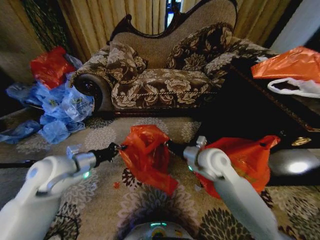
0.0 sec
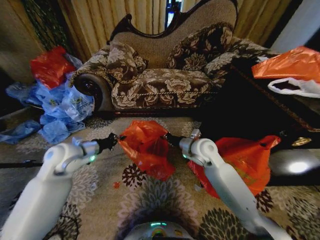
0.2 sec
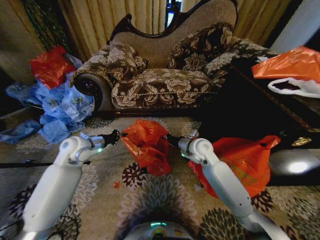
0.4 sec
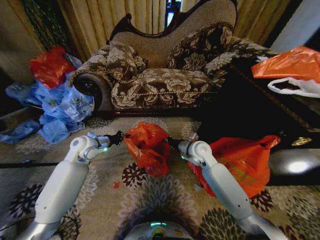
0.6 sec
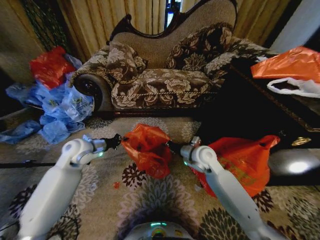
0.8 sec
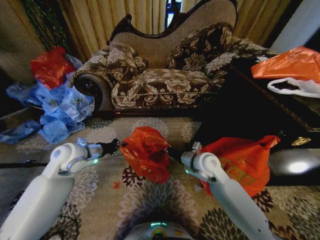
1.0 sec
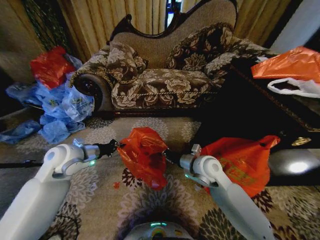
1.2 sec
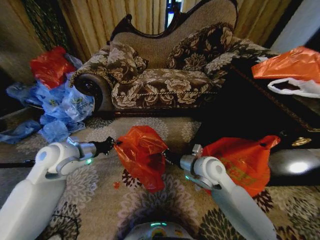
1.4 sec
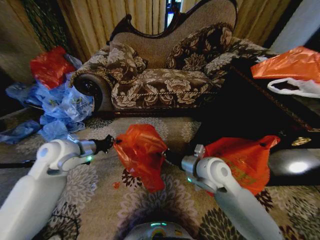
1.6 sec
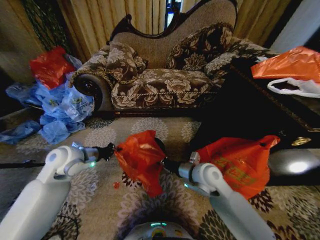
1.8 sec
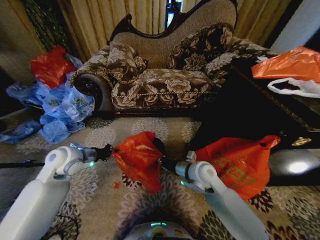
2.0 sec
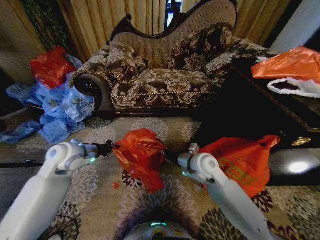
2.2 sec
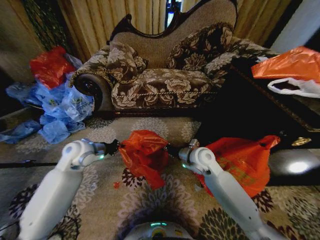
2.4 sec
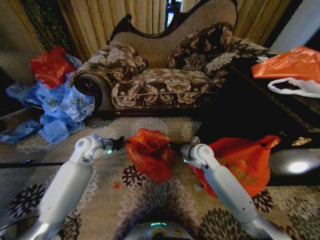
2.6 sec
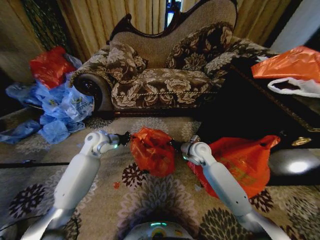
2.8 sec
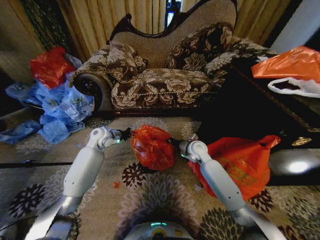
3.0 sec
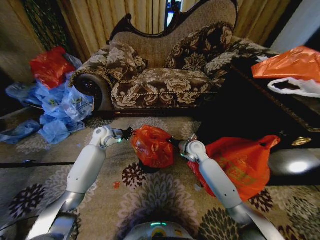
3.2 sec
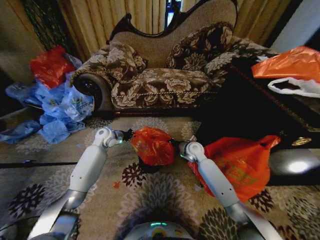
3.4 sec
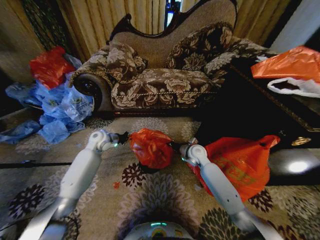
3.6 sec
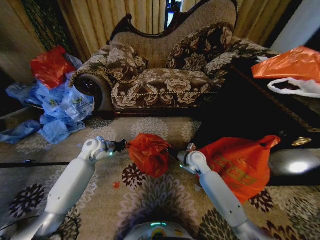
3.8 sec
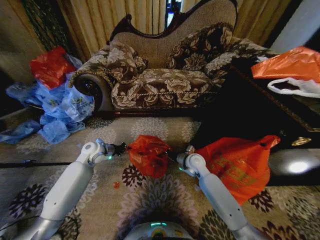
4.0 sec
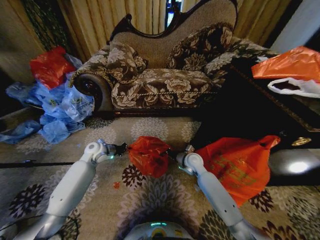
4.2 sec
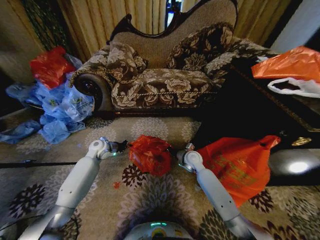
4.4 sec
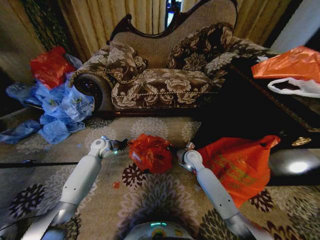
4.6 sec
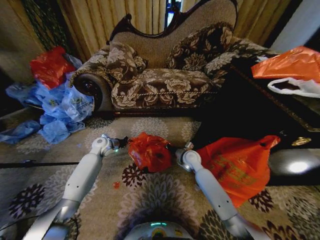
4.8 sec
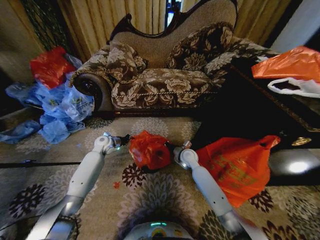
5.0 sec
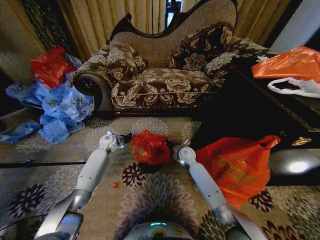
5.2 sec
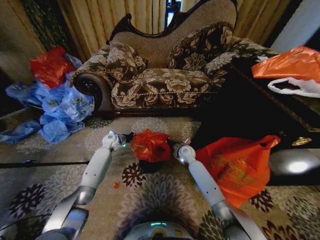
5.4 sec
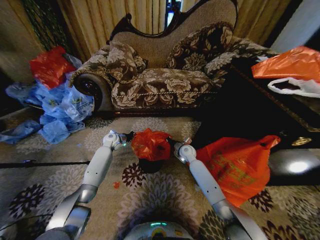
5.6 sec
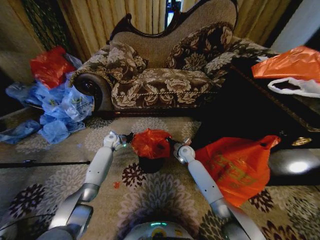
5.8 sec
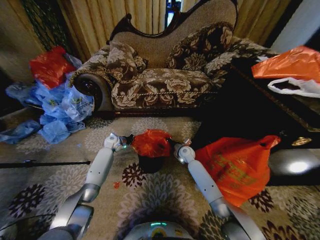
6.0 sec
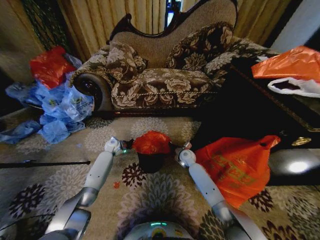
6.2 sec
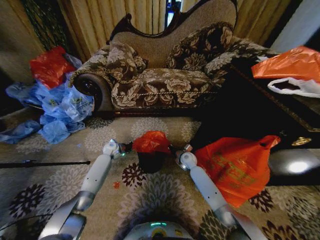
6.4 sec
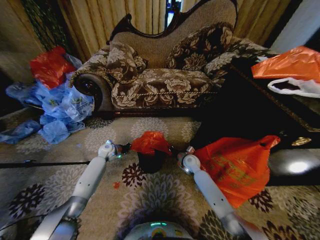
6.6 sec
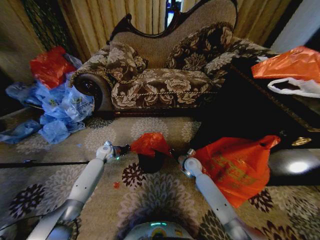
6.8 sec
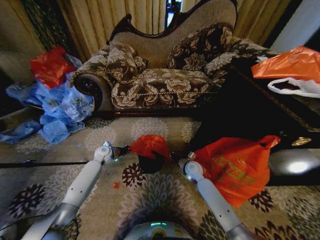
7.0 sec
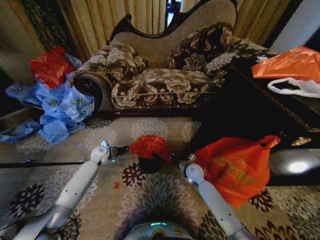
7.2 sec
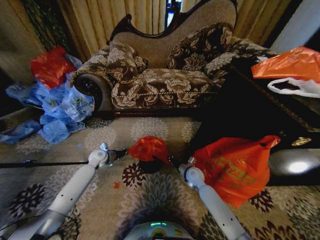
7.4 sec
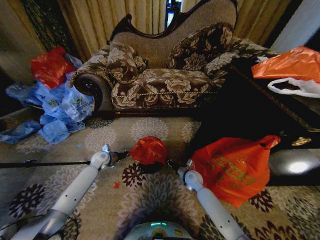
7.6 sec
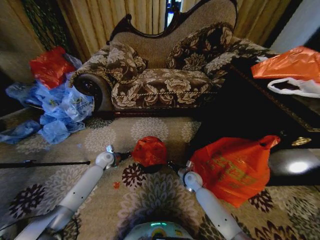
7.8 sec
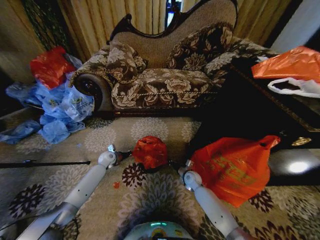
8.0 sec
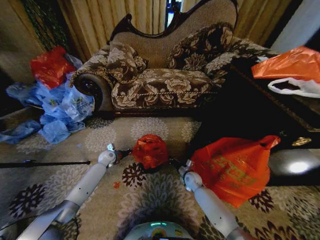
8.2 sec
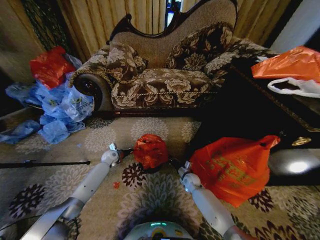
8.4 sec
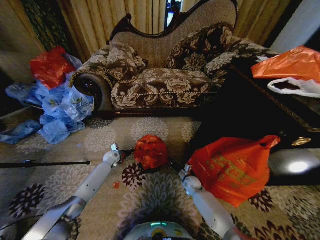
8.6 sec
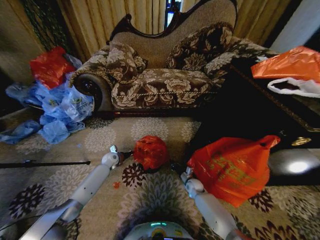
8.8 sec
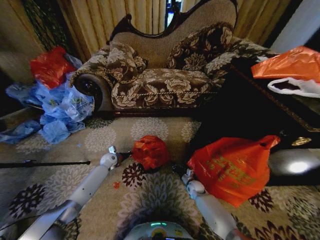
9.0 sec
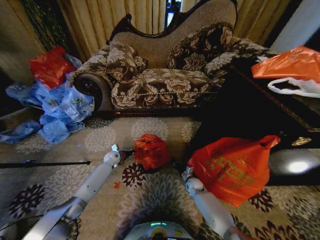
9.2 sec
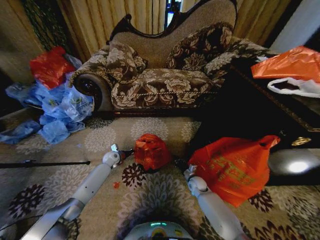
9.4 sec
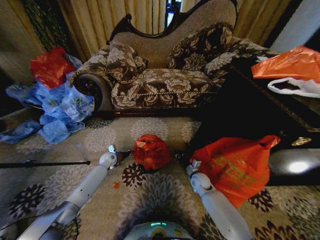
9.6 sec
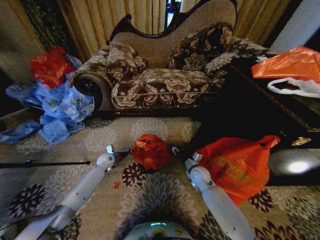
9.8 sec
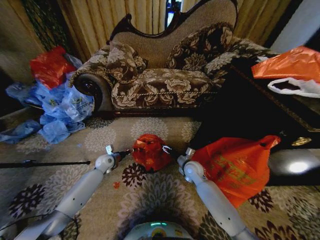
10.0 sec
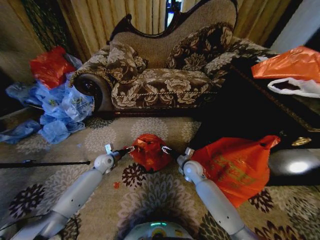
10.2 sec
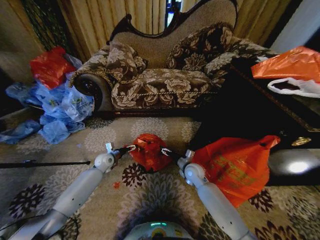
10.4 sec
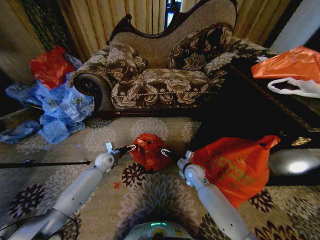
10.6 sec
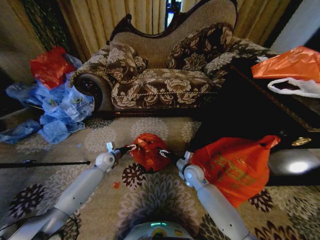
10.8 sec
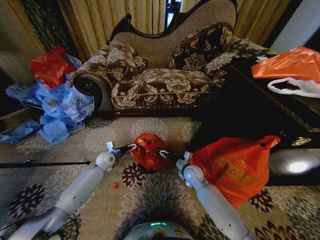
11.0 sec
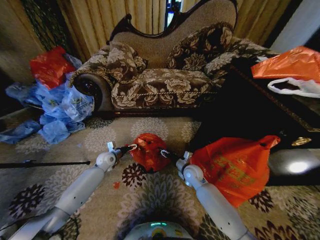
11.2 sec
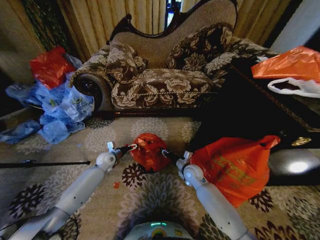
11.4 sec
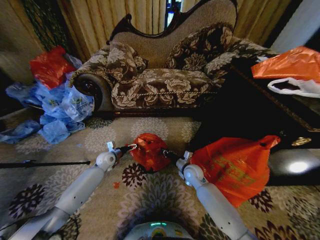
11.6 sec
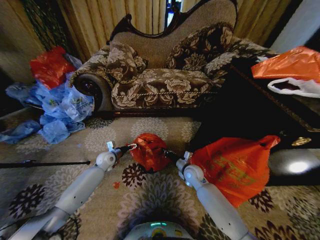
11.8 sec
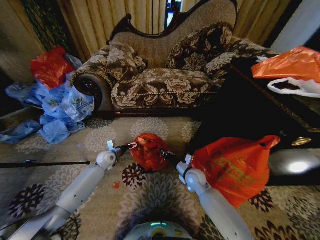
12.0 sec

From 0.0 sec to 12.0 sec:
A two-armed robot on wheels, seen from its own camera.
Task of the whole recording: Place a garbage bag over the trash bin.
From 0.0 sec to 1.6 sec: The left gripper travels forward by some 5 cm. Meanwhile the right gripper goes forward and returns, roughly 10 cm each way.
From 1.6 sec to 3.0 sec: The grippers both shift forward and downward by approximately 20 cm.
From 3.0 sec to 4.4 sec: Both grippers travel together downward, roughly 5 cm. The left gripper moves roughly 5 cm backward and comes back.
From 4.4 sec to 6.0 sec: The right gripper is displaced forward by roughly 5 cm. The left gripper is displaced forward and downward by approximately 10 cm.
From 6.0 sec to 7.6 sec: The right gripper heads backward and downward, covering roughly 15 cm. Meanwhile the left gripper travels backward by approximately 10 cm.
From 7.6 sec to 9.0 sec: The right gripper heads downward, covering roughly 10 cm; the left gripper shifts some 5 cm downward.
From 9.0 sec to 10.4 sec: The right gripper shifts some 20 cm upward, and opens its fingers, while the left gripper moves some 5 cm, and opens its fingers.
From 10.4 sec to 12.0 sec: The right gripper closes up.

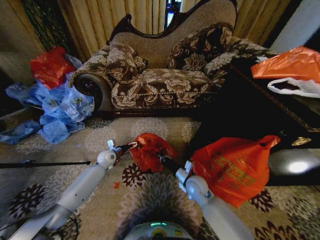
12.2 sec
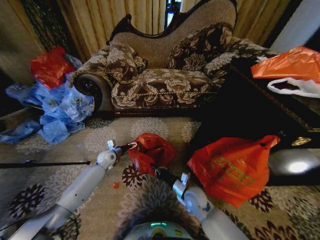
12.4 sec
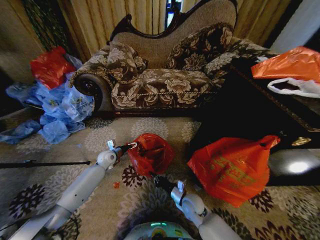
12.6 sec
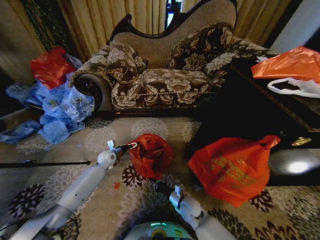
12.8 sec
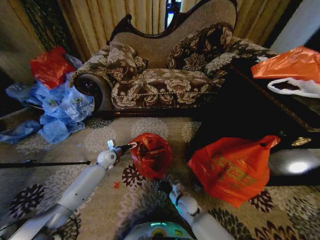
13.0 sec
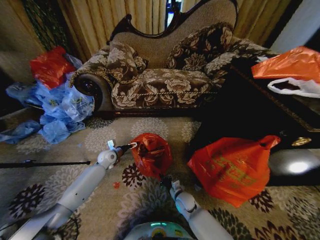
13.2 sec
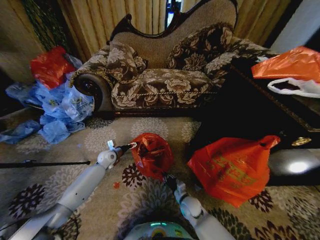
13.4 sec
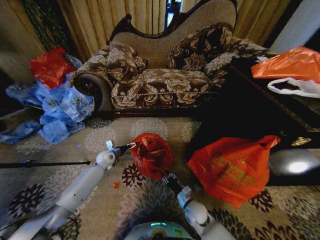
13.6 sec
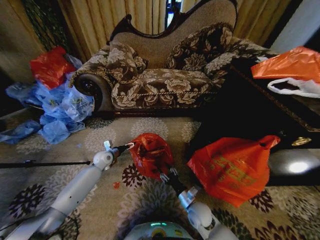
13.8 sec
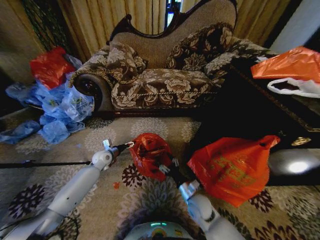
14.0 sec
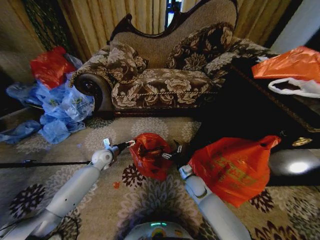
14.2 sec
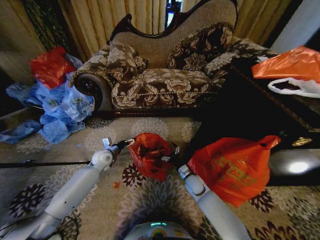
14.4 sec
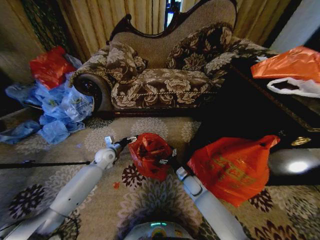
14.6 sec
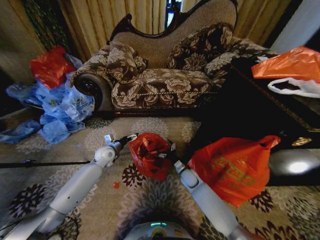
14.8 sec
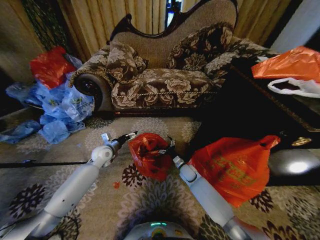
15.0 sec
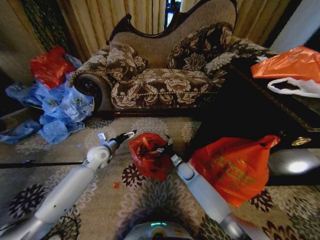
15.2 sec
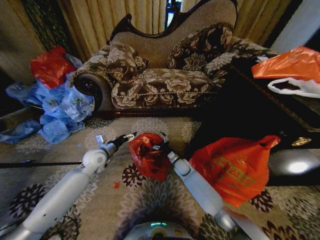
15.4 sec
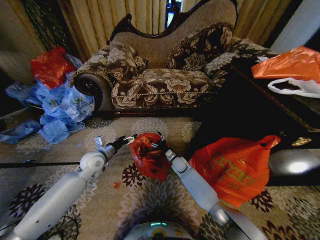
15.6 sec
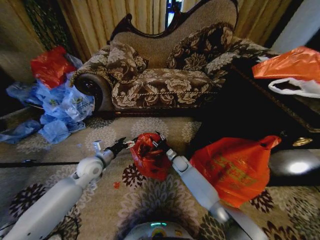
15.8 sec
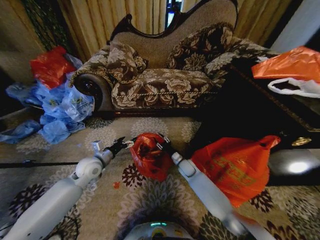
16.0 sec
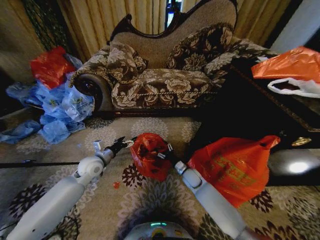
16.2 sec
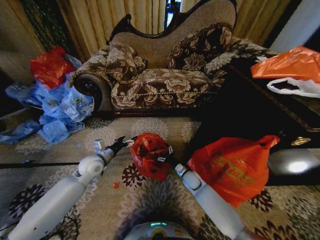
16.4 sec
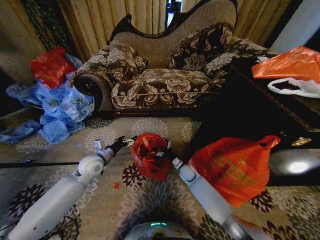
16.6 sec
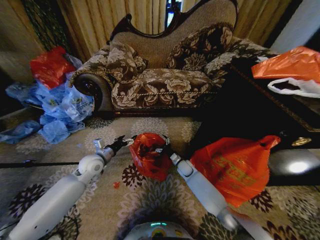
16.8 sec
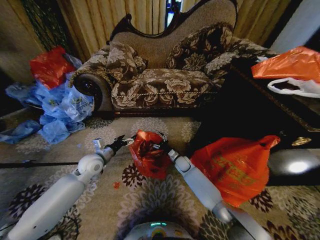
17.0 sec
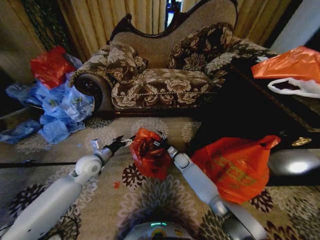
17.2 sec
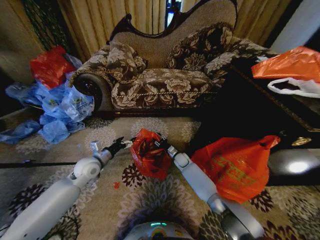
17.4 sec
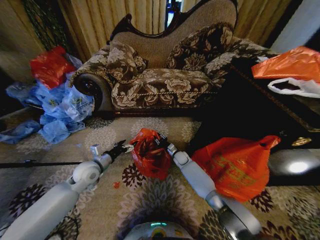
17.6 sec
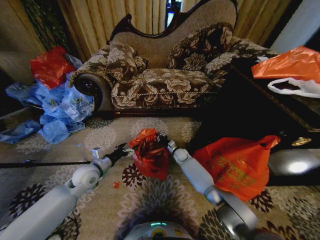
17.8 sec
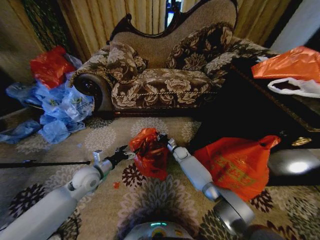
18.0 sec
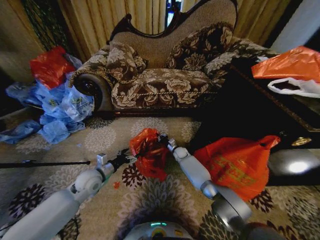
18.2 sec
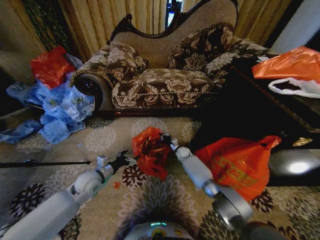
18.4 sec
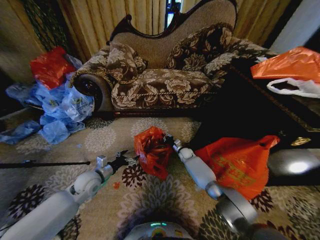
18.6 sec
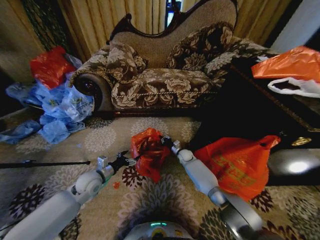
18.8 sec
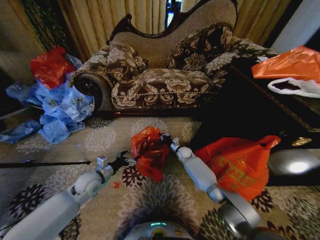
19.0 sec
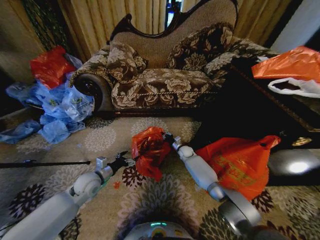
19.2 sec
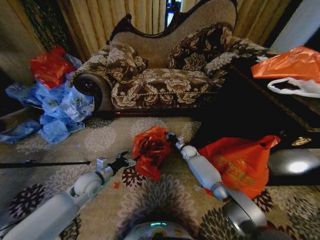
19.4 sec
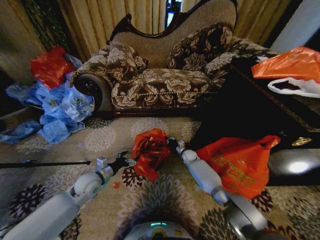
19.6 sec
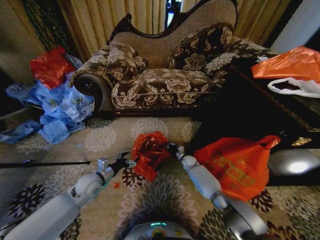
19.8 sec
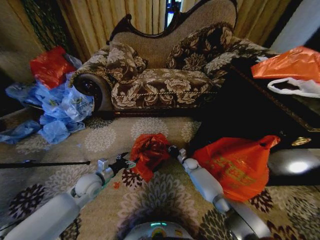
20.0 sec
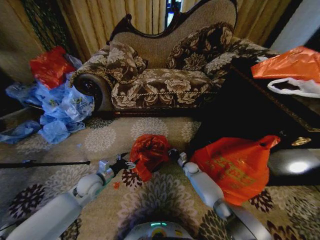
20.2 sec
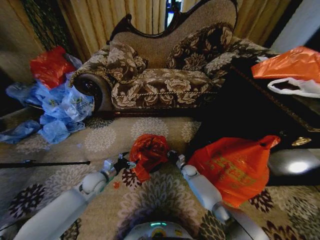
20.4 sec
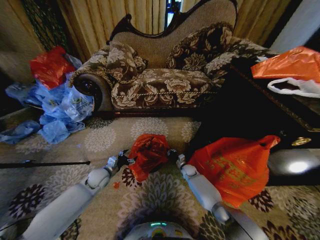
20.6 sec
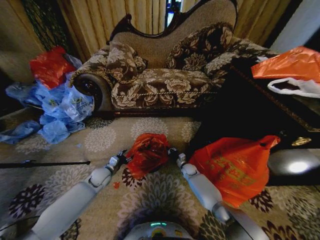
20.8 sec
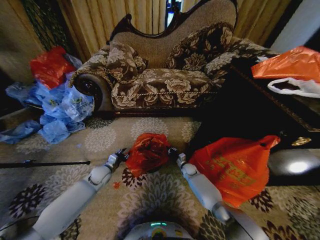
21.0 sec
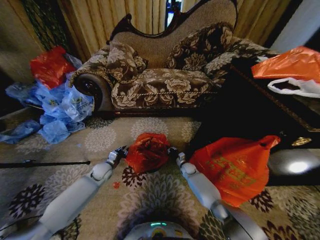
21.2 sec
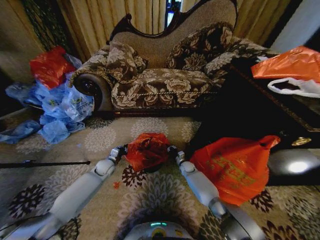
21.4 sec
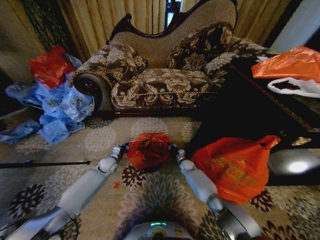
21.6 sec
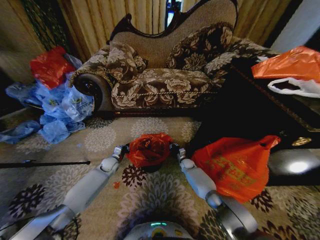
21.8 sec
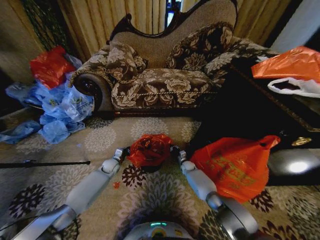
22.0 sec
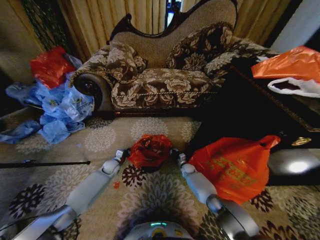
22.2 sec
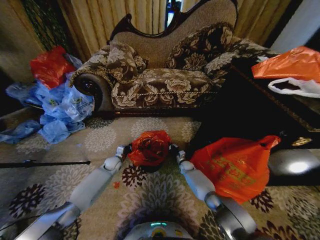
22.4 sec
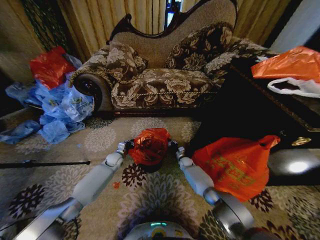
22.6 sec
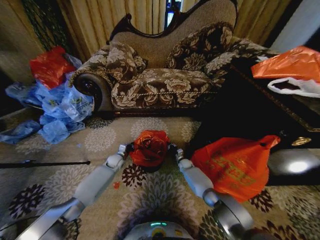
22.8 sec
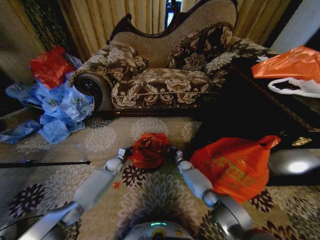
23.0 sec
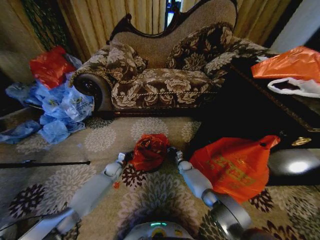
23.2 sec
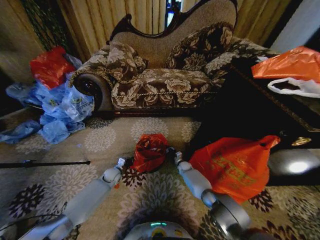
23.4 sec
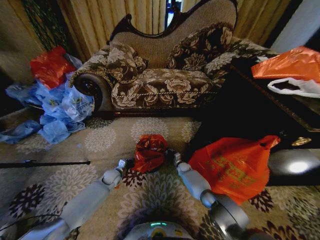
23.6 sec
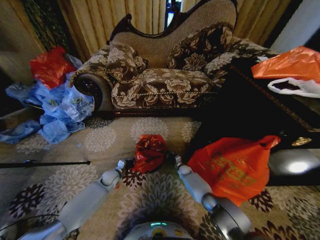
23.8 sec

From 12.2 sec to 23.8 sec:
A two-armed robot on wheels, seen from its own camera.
Task of the whole recording: Place a garbage bag over the trash bin.
From 12.2 sec to 13.6 sec: The right gripper is displaced downward and backward by about 15 cm.
From 13.6 sec to 15.0 sec: The left gripper goes some 5 cm upward. Meanwhile the right gripper goes approximately 20 cm forward, and opens.
From 15.0 sec to 16.6 sec: The right gripper goes forward and backward, roughly 10 cm each way, reversing 2 times, and closes, then opens again. The left gripper goes some 5 cm backward.
From 16.6 sec to 18.0 sec: The left gripper ends up about 5 cm from where it was. Meanwhile the right gripper travels forward by roughly 10 cm, and closes.
From 18.0 sec to 19.4 sec: The right gripper moves to the right, approximately 5 cm.
From 19.4 sec to 21.0 sec: The left gripper is displaced forward and downward by roughly 10 cm, and closes up. Meanwhile the right gripper travels downward and backward by roughly 10 cm.
From 21.0 sec to 22.4 sec: The left gripper shifts roughly 10 cm forward, and closes its fingers.
From 22.4 sec to 23.8 sec: The left gripper shifts some 5 cm backward.
